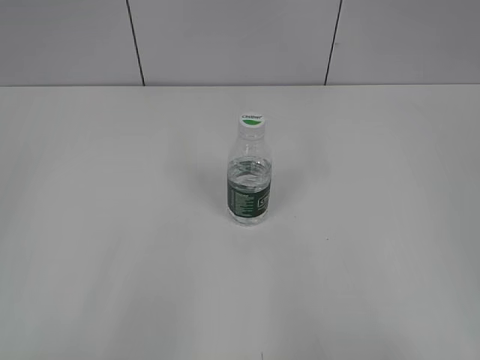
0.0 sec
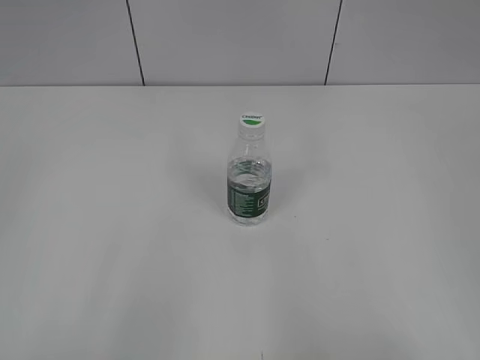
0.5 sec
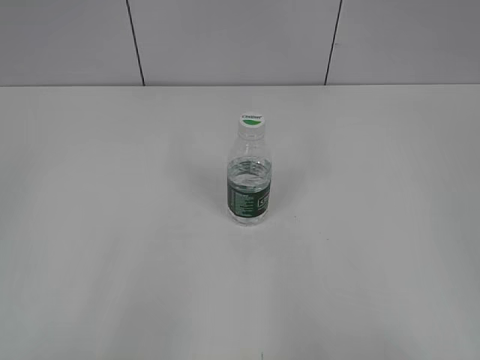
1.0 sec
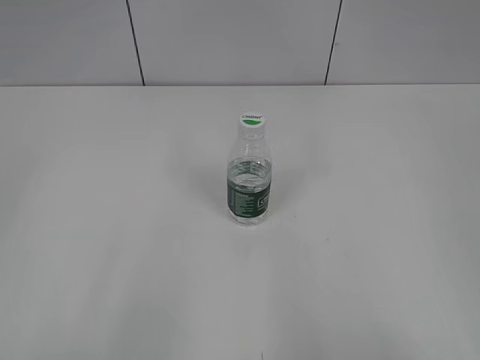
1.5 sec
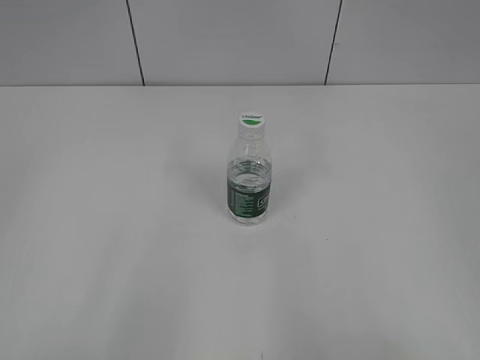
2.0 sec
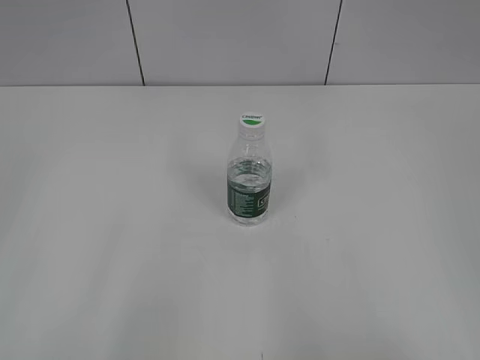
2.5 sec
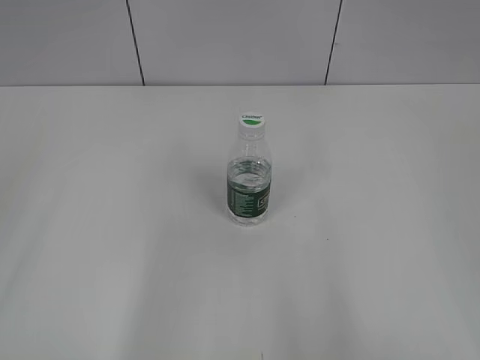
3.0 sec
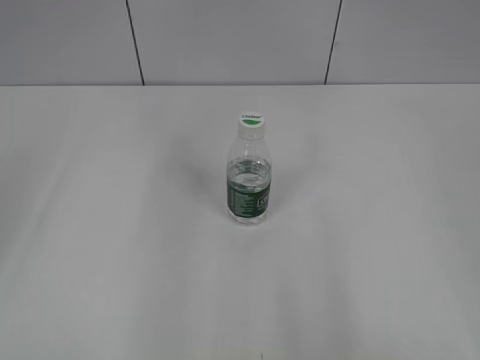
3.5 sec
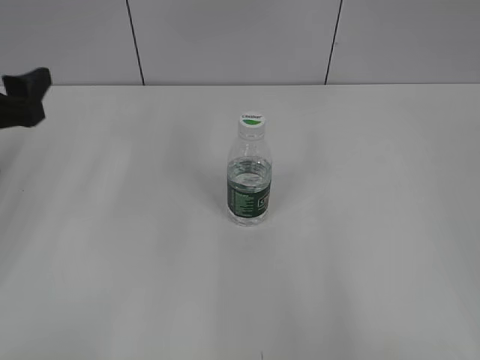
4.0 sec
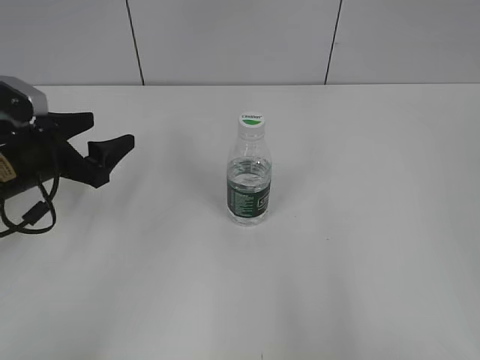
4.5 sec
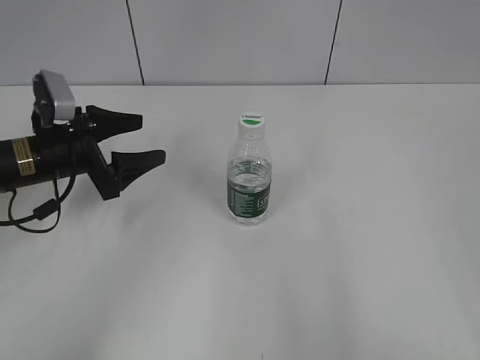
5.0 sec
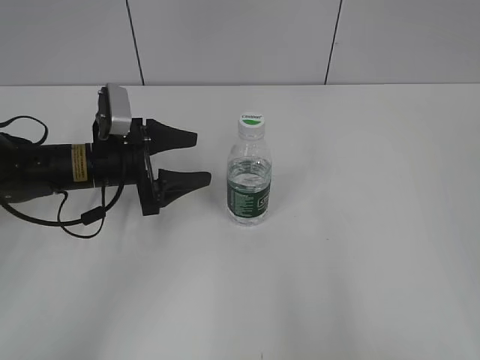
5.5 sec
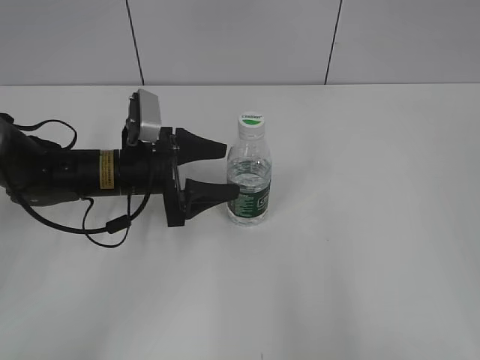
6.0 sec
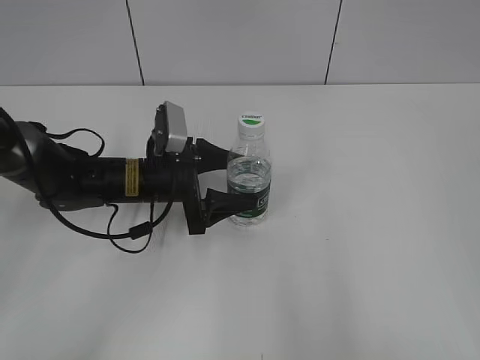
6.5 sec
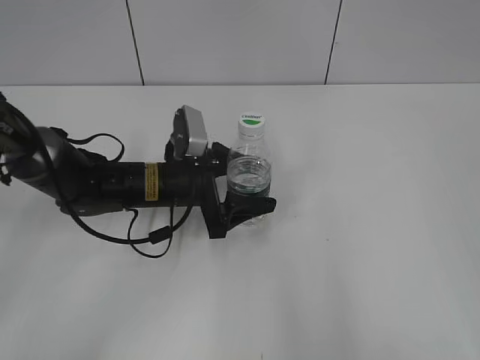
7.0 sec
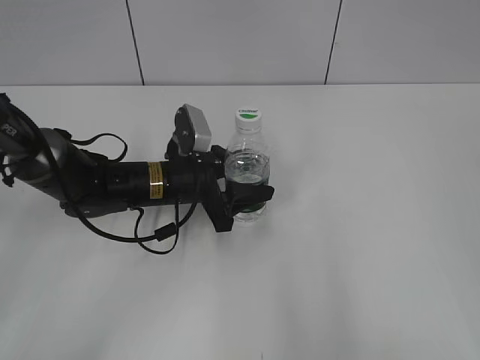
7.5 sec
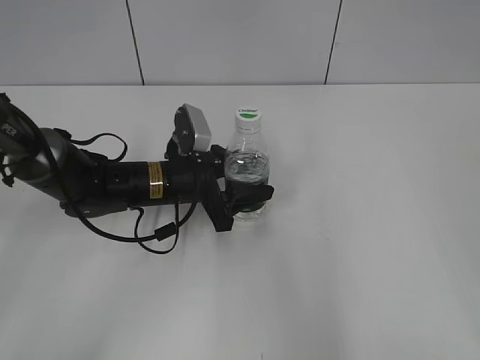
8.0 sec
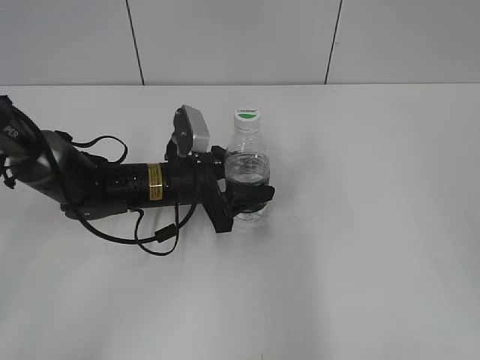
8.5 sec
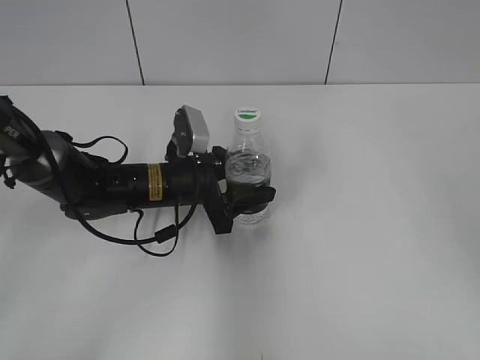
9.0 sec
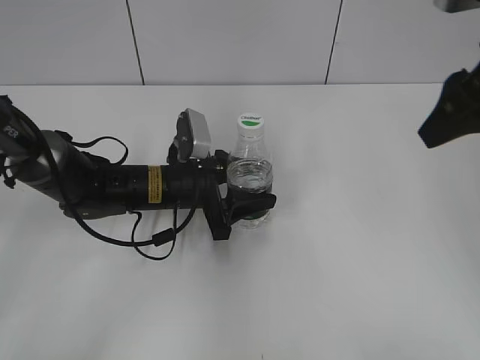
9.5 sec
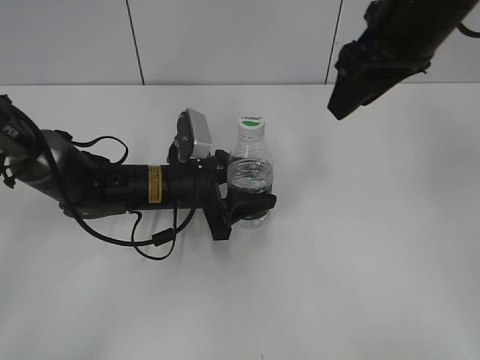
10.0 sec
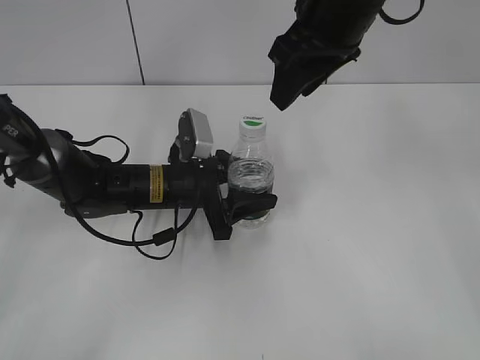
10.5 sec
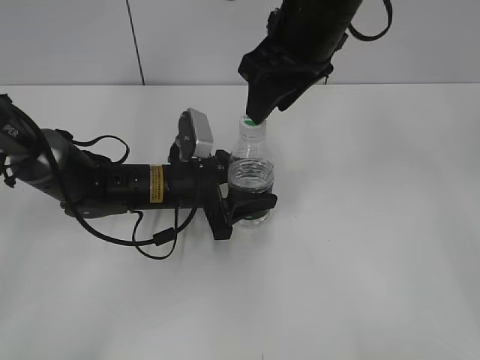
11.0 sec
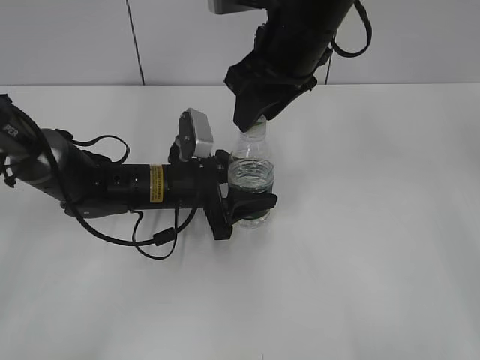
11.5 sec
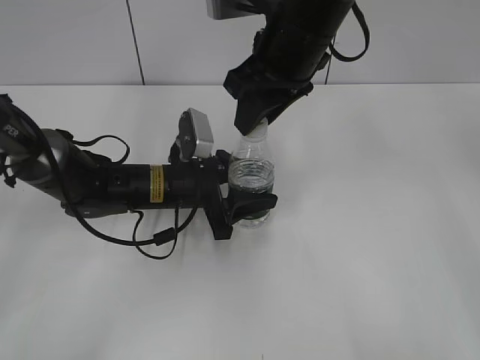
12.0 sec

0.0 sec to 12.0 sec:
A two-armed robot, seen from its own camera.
Step, 0.0 sec to 10.0 sec: Grasp the bottle and move it to the center of the table with the left gripper.
2.0 sec to 4.0 sec: The left gripper moves forward, approximately 30 cm, and opens its fingers.
4.0 sec to 6.0 sec: The left gripper heads to the right, downward and forward, covering roughly 20 cm.
6.0 sec to 8.0 sec: The left gripper heads to the right, covering approximately 5 cm, and closes.
8.0 sec to 10.0 sec: The right gripper heads forward and to the left, covering about 35 cm, and closes its fingers.
10.0 sec to 12.0 sec: The right gripper moves to the left, approximately 10 cm.

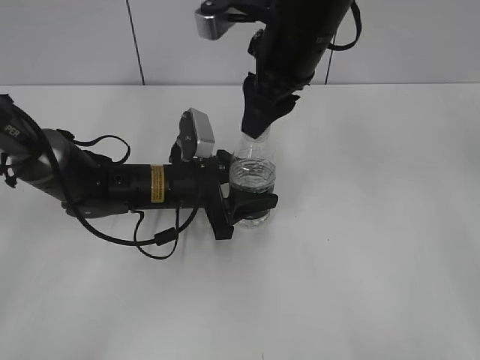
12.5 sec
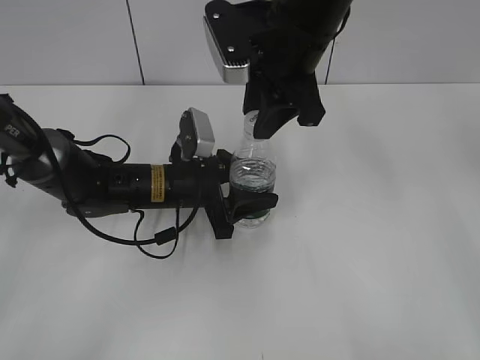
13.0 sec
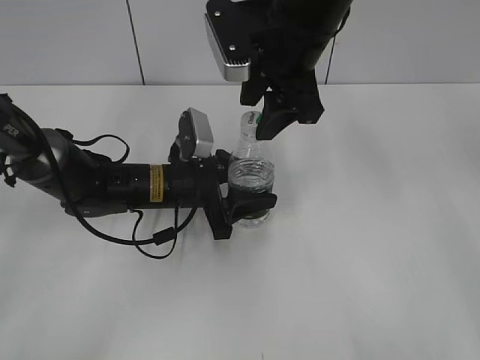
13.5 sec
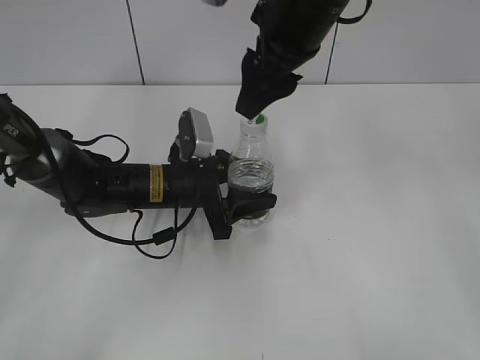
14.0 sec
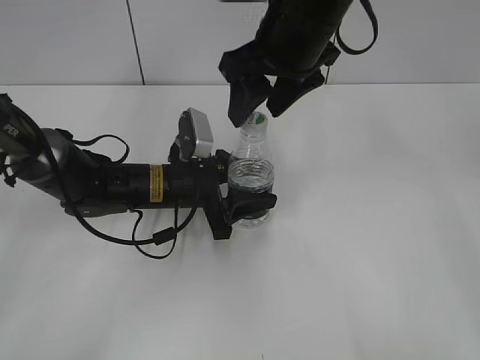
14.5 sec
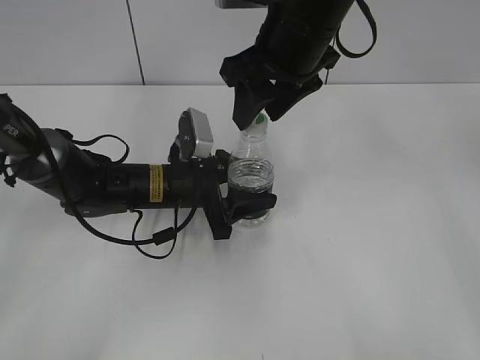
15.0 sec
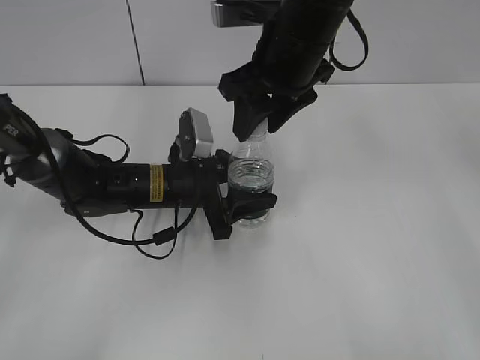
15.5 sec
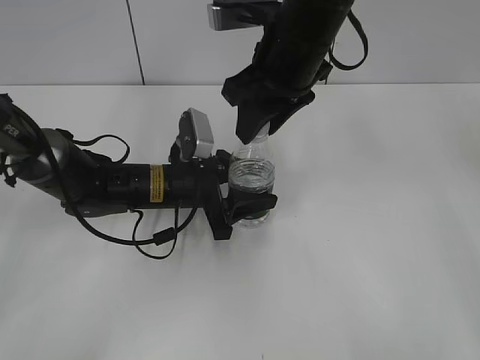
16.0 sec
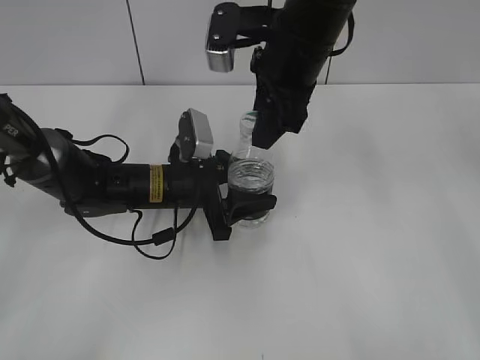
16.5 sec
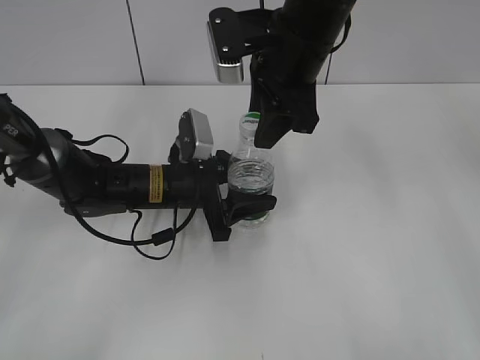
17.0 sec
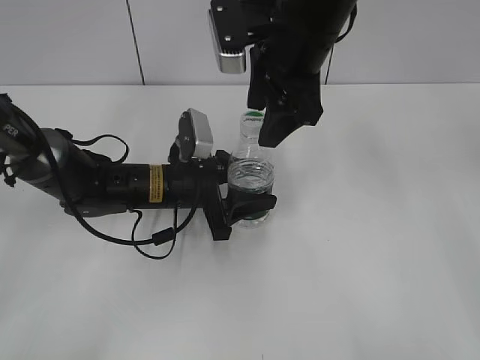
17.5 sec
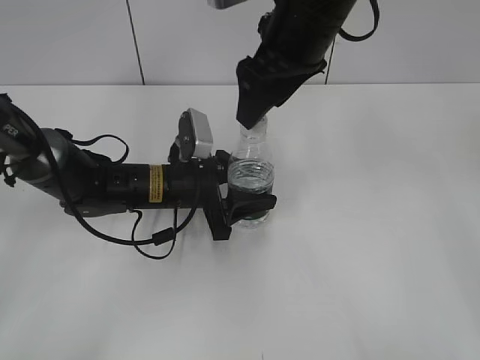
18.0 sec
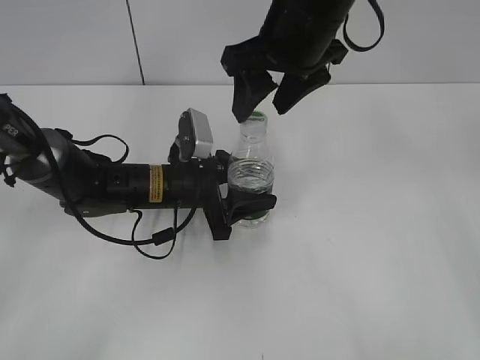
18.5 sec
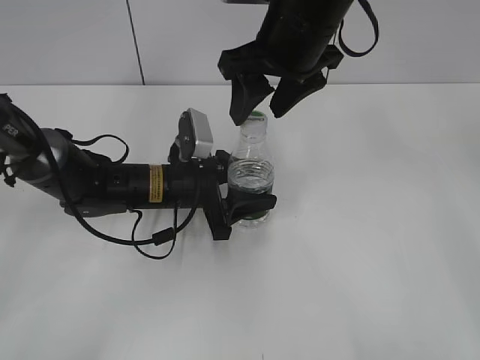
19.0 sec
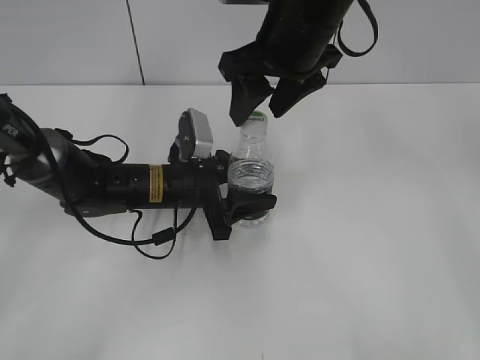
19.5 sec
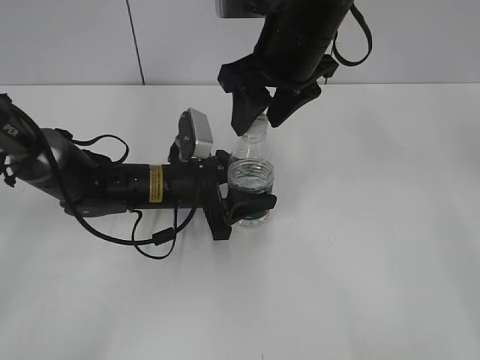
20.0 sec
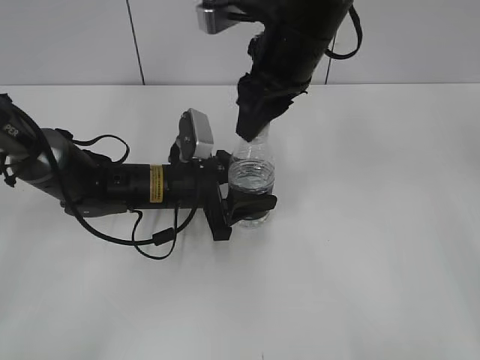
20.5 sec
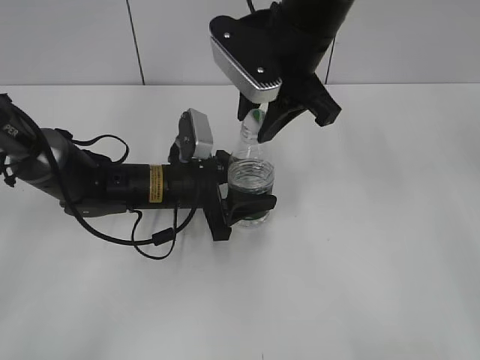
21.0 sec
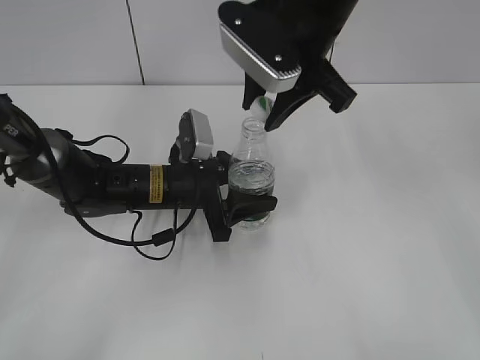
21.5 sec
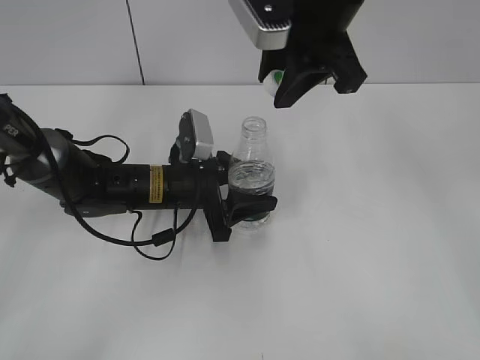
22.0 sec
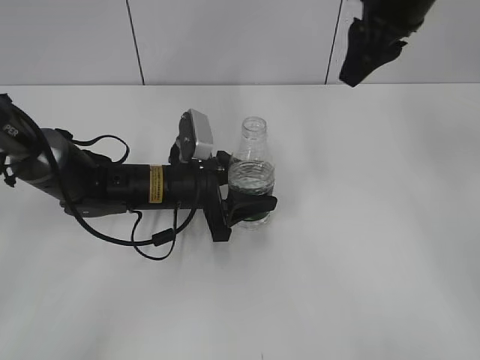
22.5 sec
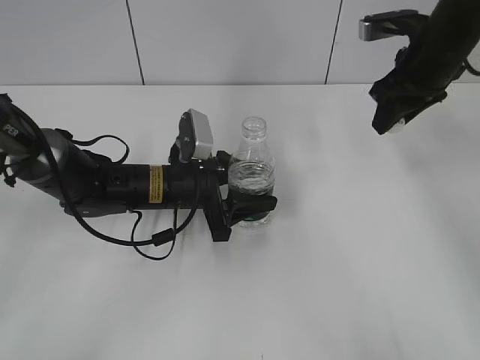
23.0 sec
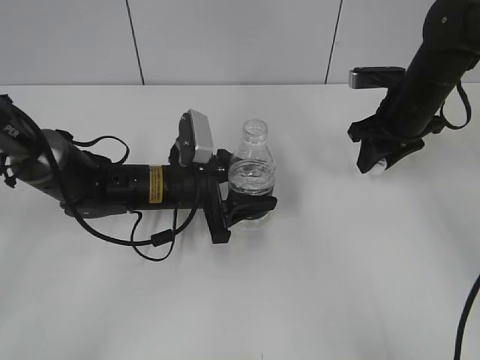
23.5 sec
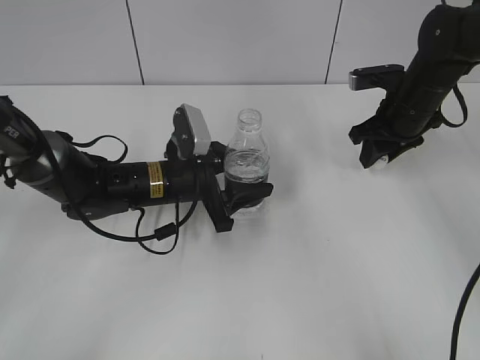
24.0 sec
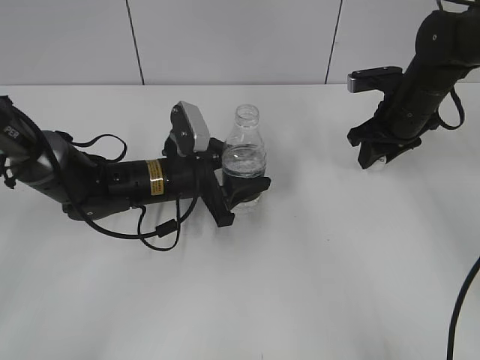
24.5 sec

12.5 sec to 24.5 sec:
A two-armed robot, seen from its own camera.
Step, 12.5 sec to 21.5 sec: Unscrew the bottle cap with the right gripper while holding the bottle with the left gripper.
12.5 sec to 14.5 sec: The right gripper opens up.
14.5 sec to 16.5 sec: The right gripper closes its fingers.
16.5 sec to 18.5 sec: The right gripper opens its fingers.
18.5 sec to 20.5 sec: The right gripper closes up.
20.5 sec to 22.5 sec: The right gripper heads to the right, covering some 10 cm.
22.5 sec to 24.5 sec: The right gripper travels downward by about 20 cm.

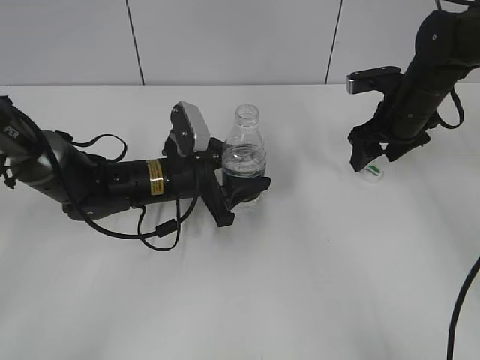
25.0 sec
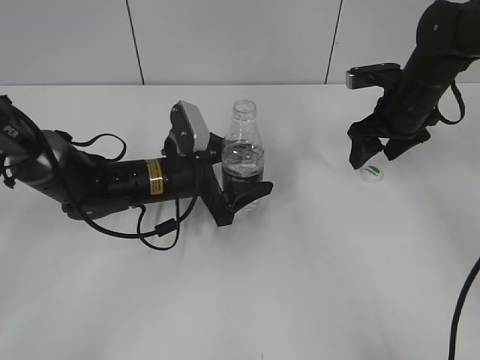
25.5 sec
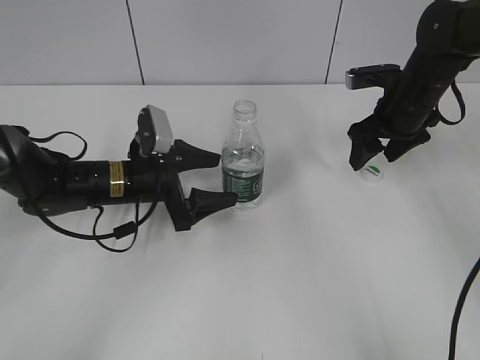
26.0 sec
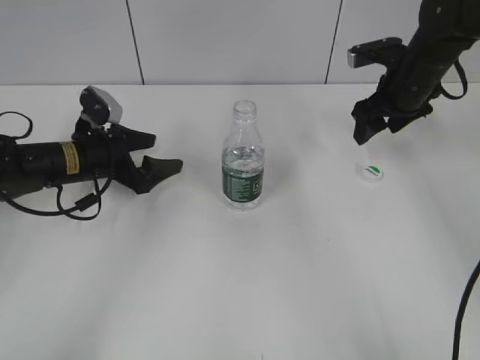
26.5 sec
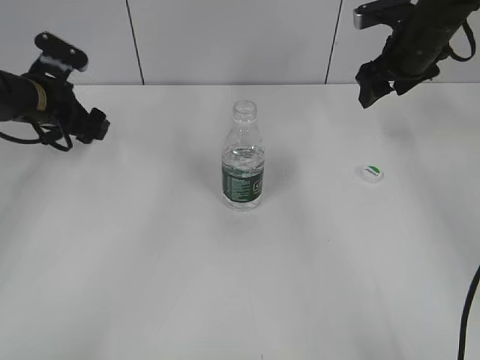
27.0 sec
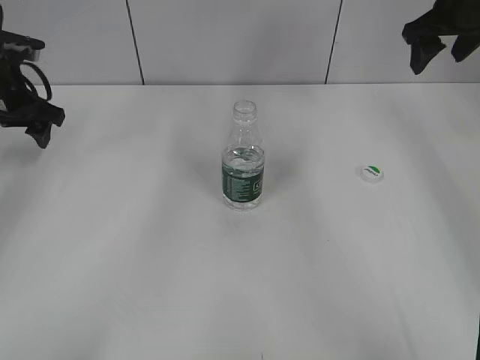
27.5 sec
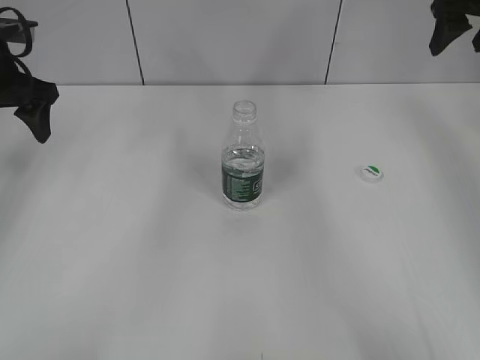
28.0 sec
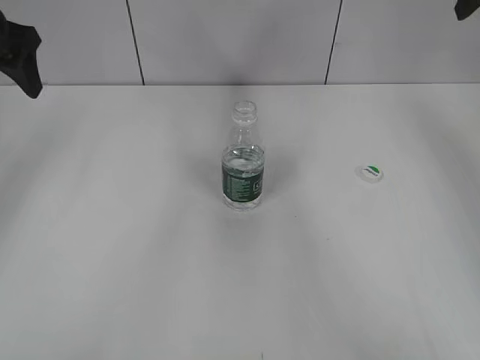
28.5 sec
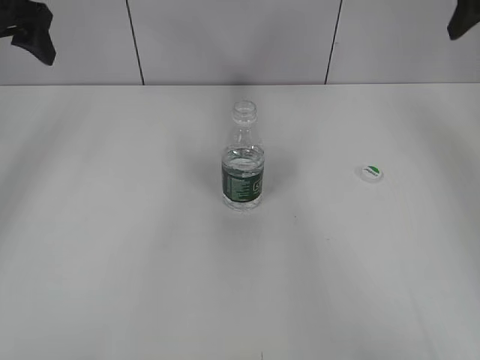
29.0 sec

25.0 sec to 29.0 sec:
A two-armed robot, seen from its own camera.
25.0 sec to 27.0 sec: The right gripper travels upward by some 5 cm. The left gripper moves to the left and forward, approximately 20 cm, and opens.
27.0 sec to 29.0 sec: The left gripper heads upward, covering approximately 15 cm. Meanwhile the right gripper heads upward and to the right, covering approximately 15 cm.
